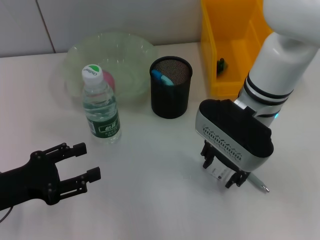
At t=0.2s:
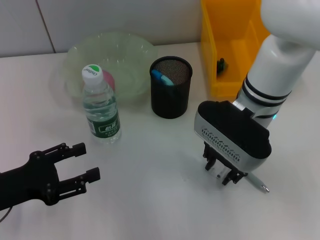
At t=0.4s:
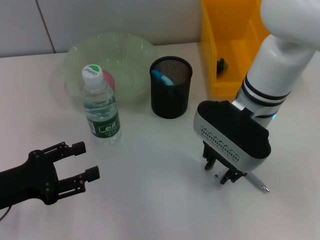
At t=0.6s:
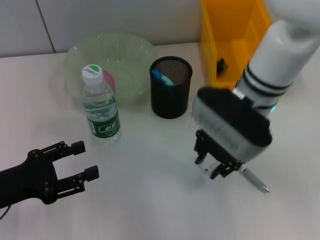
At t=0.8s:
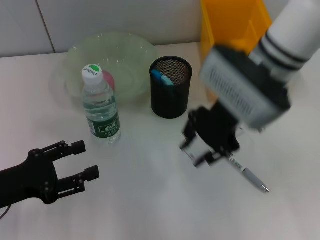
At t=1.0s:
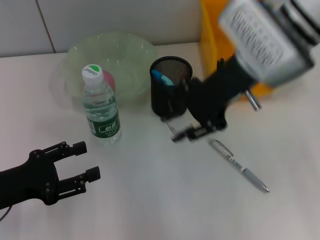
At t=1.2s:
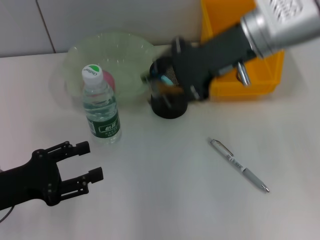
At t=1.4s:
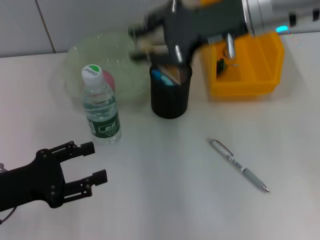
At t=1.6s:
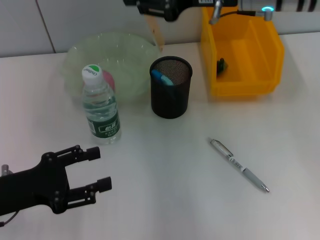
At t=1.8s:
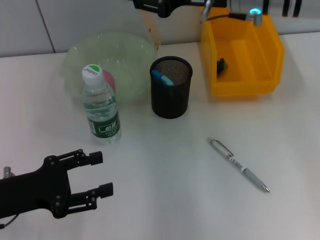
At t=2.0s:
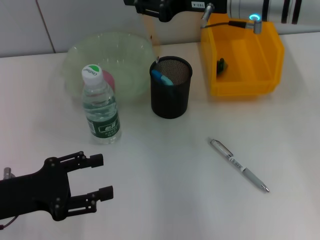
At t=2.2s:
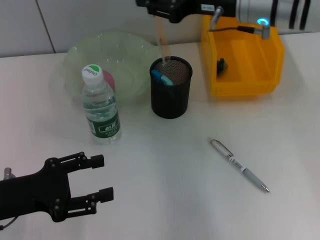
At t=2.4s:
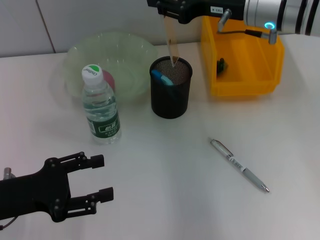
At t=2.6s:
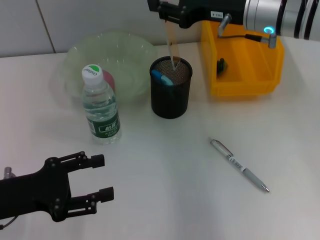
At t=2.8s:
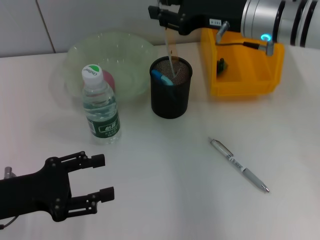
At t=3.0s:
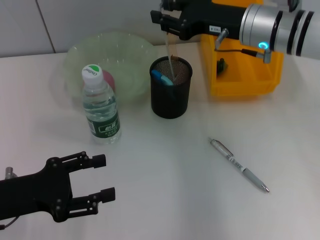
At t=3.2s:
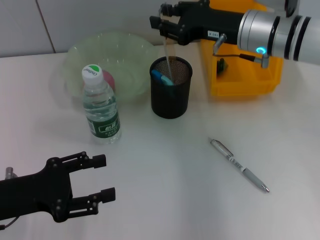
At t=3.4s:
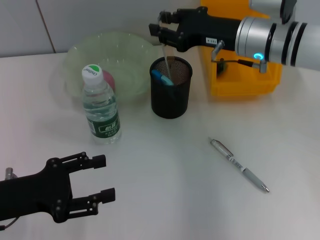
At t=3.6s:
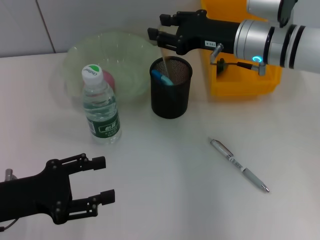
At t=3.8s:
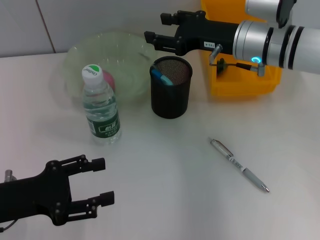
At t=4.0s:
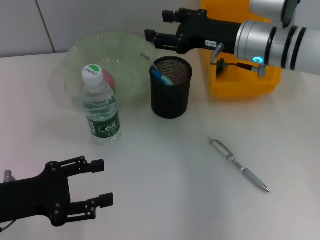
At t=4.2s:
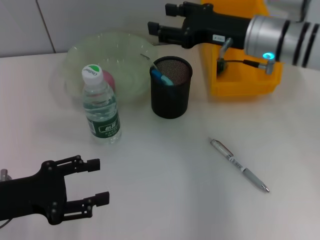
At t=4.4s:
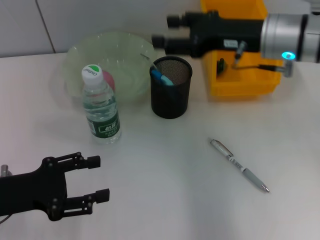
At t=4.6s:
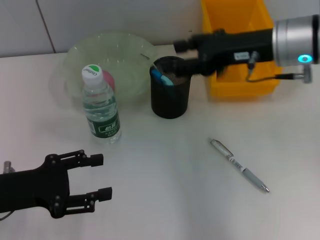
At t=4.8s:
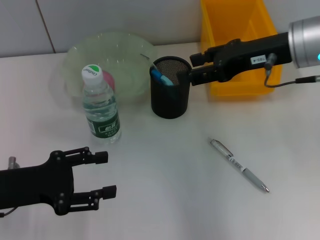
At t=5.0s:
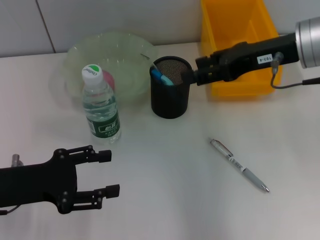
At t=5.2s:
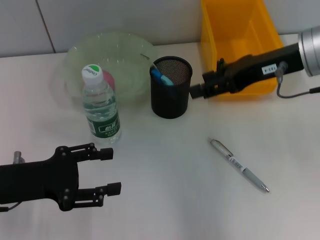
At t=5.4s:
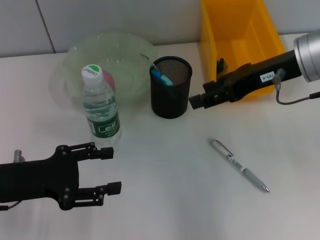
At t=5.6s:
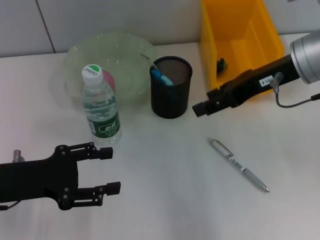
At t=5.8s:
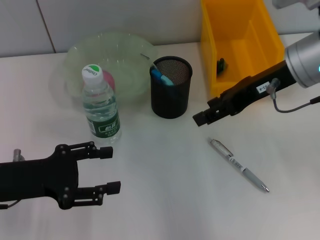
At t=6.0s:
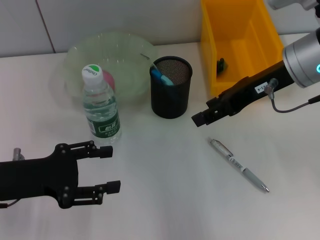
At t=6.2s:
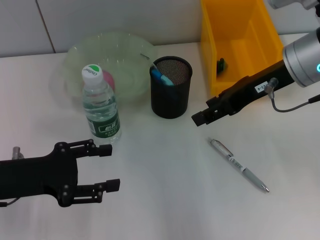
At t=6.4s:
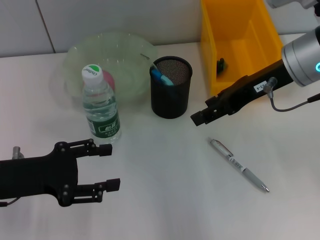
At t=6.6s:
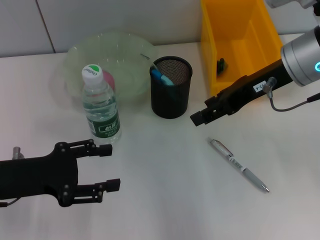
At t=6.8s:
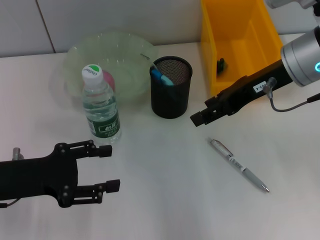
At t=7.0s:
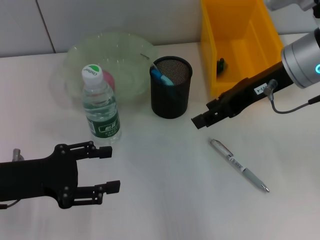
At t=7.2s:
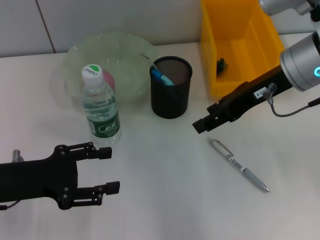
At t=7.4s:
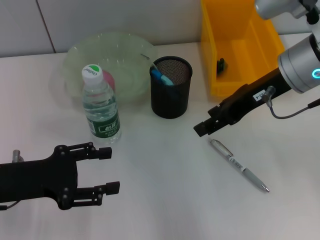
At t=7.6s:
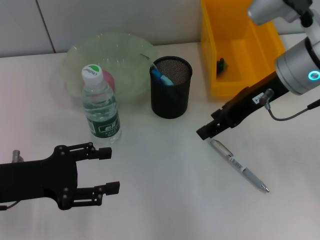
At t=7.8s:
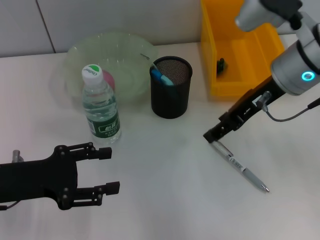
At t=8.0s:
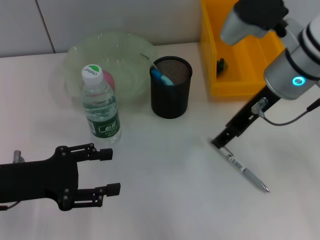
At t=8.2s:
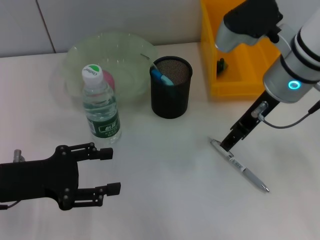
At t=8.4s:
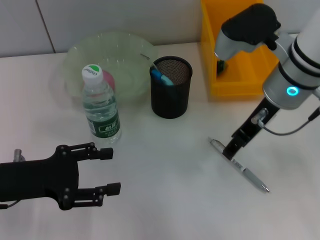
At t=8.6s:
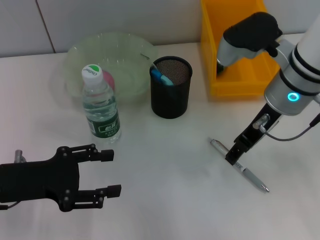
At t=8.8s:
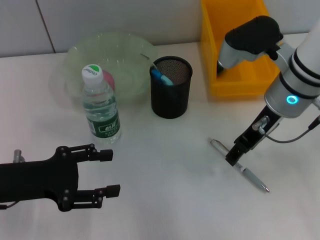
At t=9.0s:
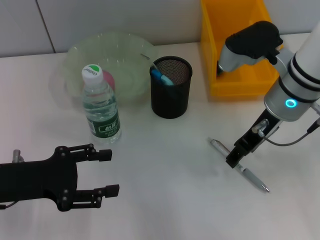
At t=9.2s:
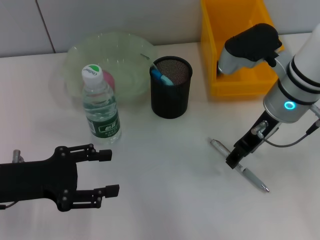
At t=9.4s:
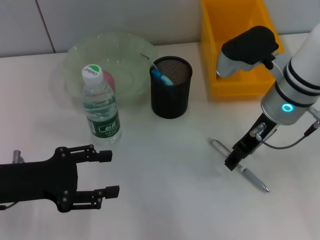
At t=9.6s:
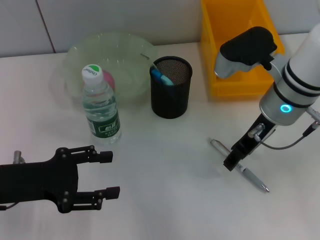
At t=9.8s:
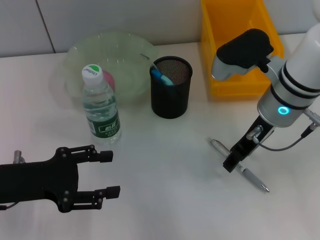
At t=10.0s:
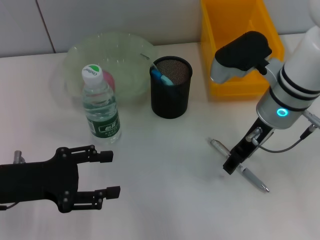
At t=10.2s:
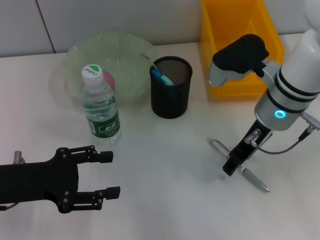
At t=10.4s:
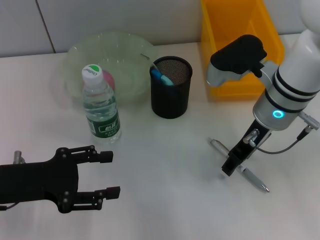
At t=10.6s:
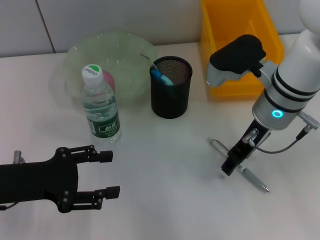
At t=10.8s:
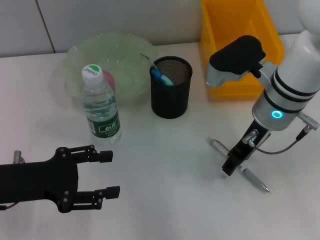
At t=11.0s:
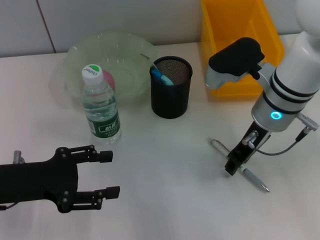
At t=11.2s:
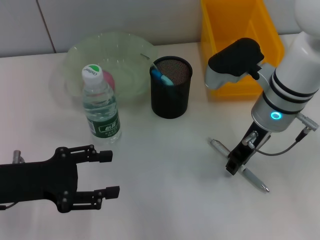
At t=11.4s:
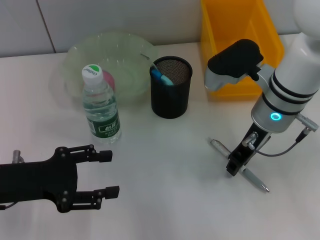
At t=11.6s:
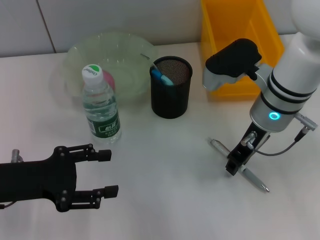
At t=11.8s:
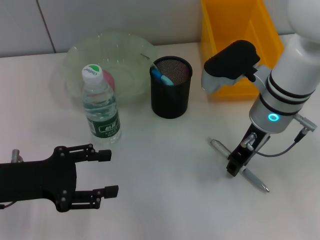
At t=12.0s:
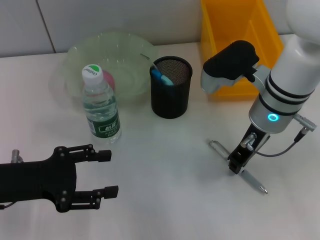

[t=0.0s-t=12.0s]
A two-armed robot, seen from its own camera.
Step, t=0.4s to t=4.2s: Place the ruler into the pen holder with the right hand.
t=0.0s to t=1.6s: The right gripper heads upward and forward, covering about 10 cm.
t=1.6s to t=3.0s: The right gripper moves downward, approximately 5 cm.
t=3.0s to t=4.4s: The right gripper opens its fingers.
t=6.0s to t=7.6s: The grippers make only small movements.
t=7.6s to t=9.0s: The right gripper moves about 5 cm.
t=9.0s to t=10.4s: The grippers stay close to where they were, moving slightly.
t=10.4s to t=12.0s: The right gripper closes.

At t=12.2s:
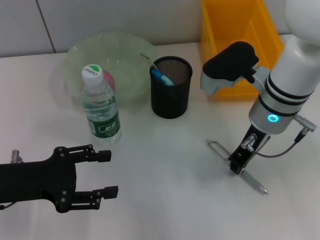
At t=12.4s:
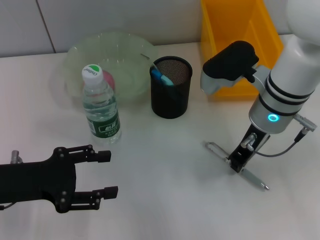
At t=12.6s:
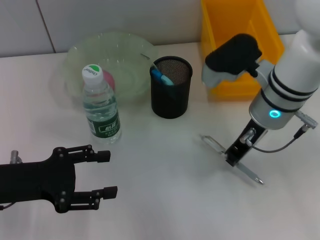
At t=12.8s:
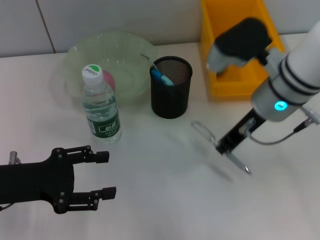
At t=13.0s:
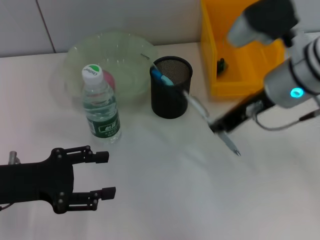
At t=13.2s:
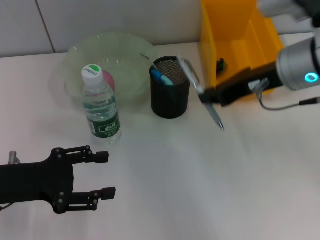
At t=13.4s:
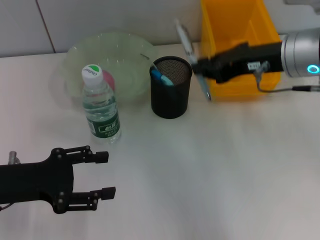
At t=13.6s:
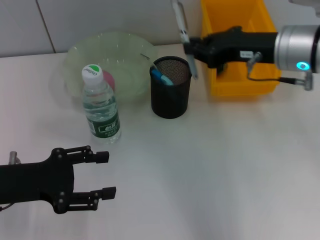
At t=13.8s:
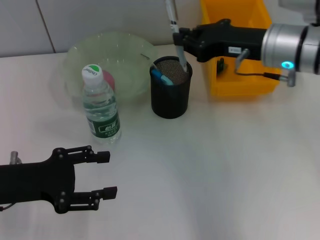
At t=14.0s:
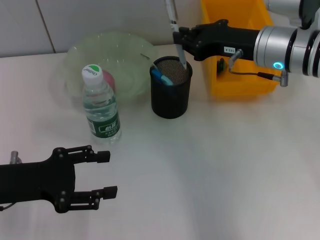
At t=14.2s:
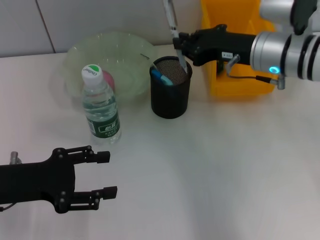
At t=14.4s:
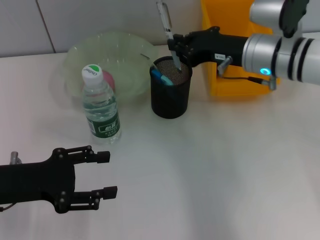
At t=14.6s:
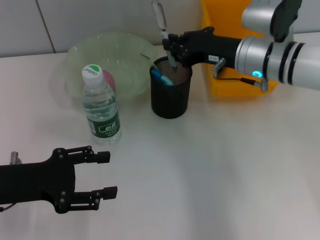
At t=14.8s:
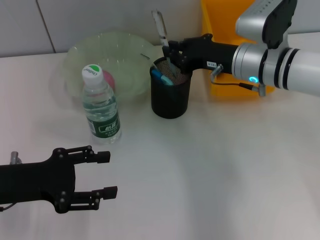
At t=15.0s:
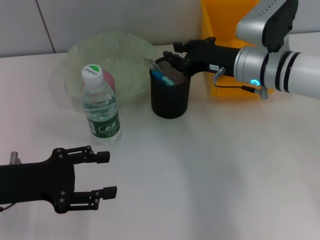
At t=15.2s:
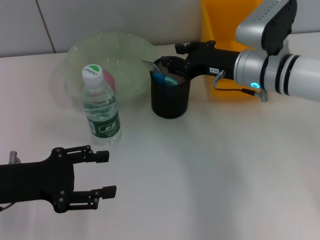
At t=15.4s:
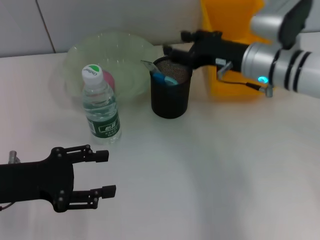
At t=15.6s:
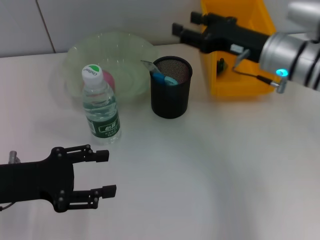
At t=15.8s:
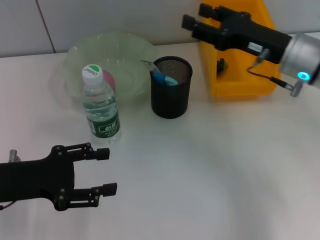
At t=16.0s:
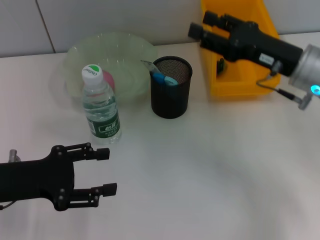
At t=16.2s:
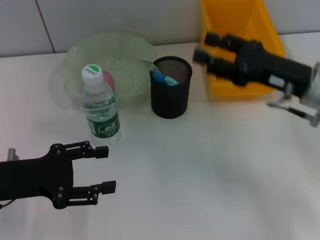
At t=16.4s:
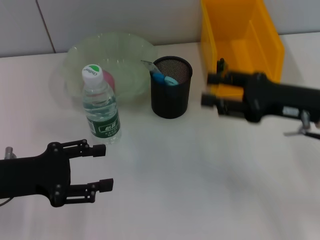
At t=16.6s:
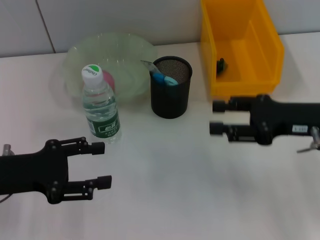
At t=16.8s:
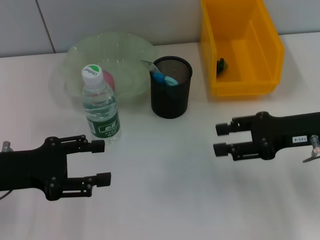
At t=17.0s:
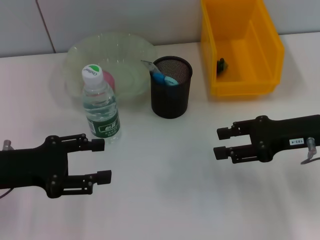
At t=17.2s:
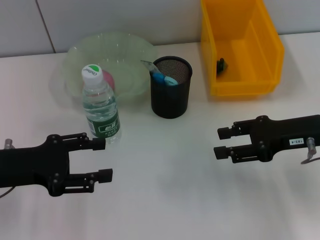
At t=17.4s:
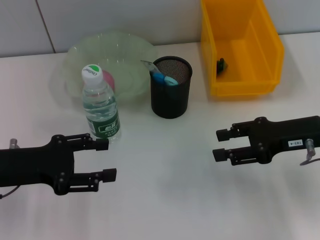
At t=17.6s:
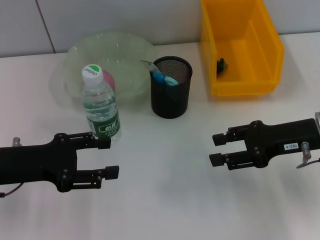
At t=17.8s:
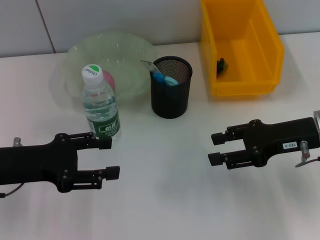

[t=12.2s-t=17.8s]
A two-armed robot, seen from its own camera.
Step, t=12.4s to t=15.2s: Place the gray spring-action pen into the pen holder with the right hand.
t=12.2s to t=13.6s: The right gripper is displaced upward by some 5 cm.
t=13.6s to t=15.0s: The right gripper shifts roughly 5 cm downward.
t=15.0s to t=16.4s: The right gripper shifts some 15 cm backward and to the right, and opens up.
